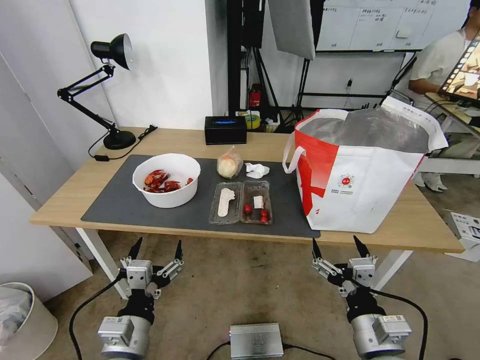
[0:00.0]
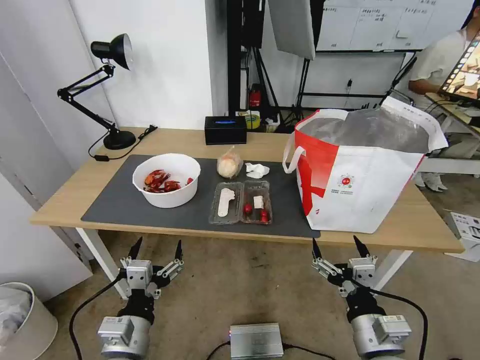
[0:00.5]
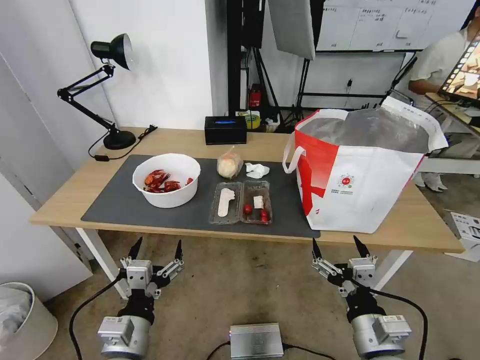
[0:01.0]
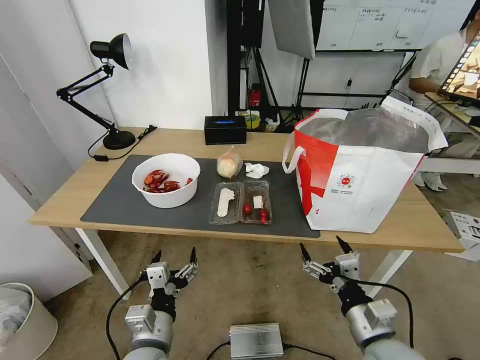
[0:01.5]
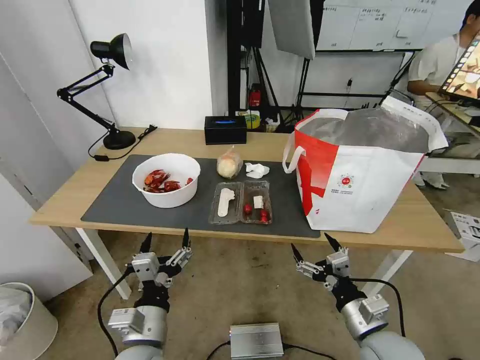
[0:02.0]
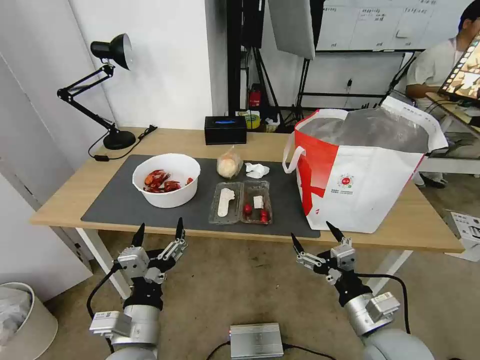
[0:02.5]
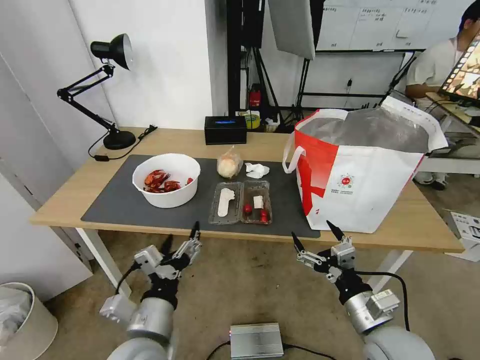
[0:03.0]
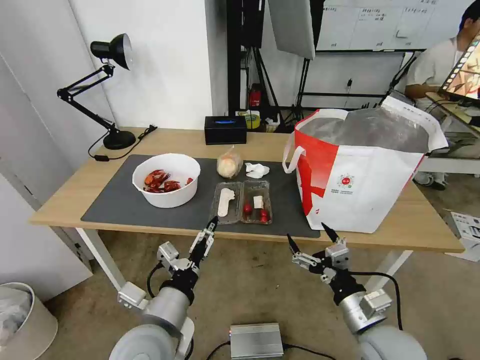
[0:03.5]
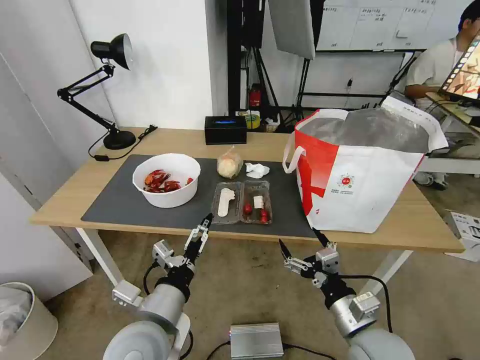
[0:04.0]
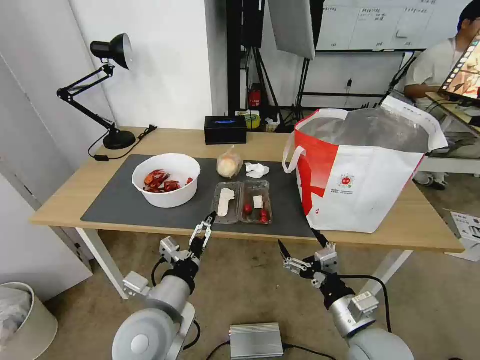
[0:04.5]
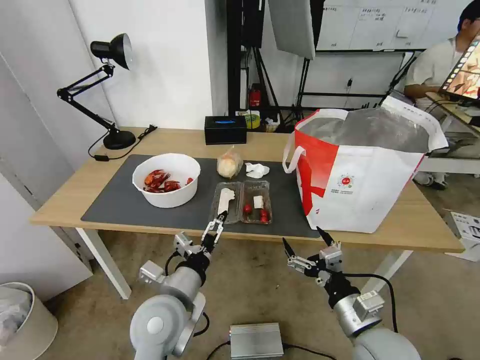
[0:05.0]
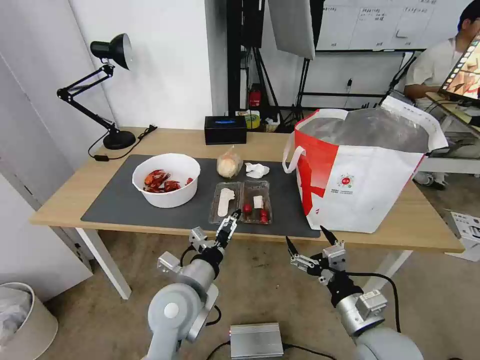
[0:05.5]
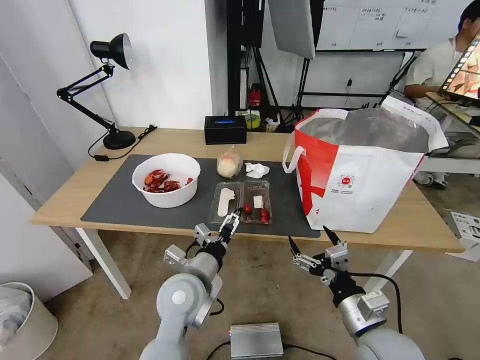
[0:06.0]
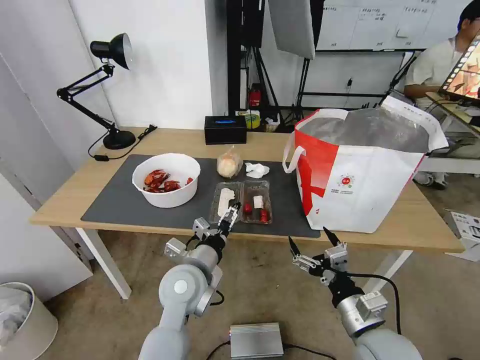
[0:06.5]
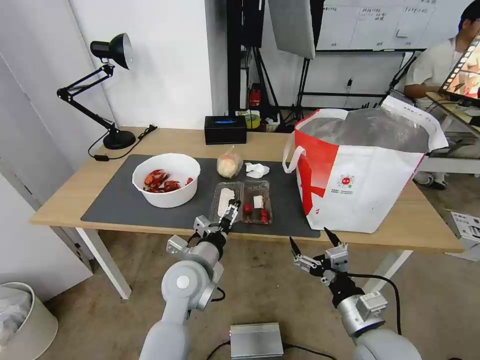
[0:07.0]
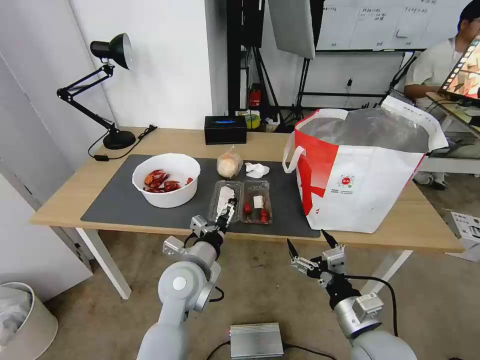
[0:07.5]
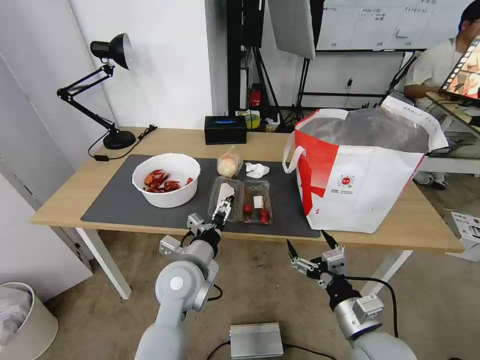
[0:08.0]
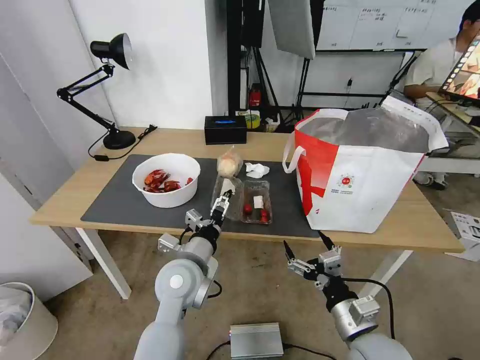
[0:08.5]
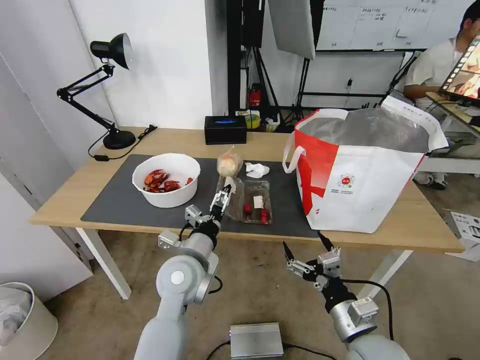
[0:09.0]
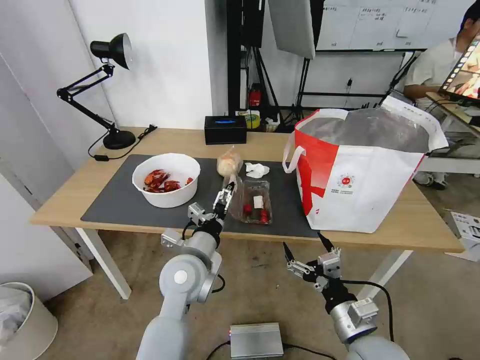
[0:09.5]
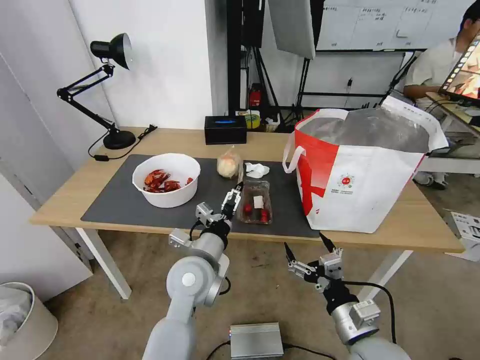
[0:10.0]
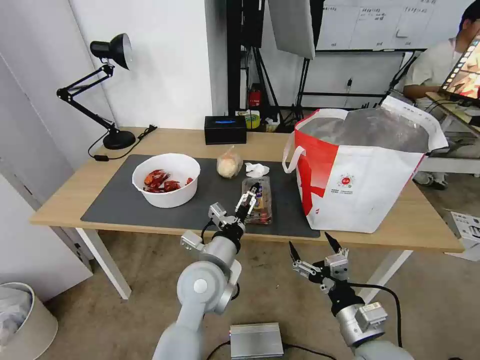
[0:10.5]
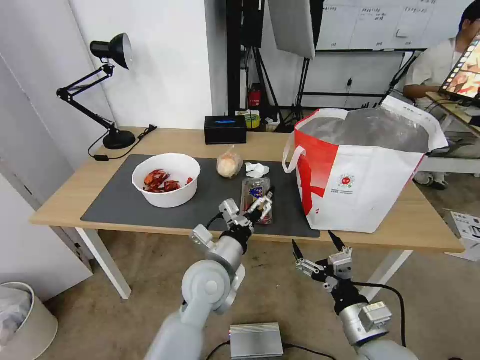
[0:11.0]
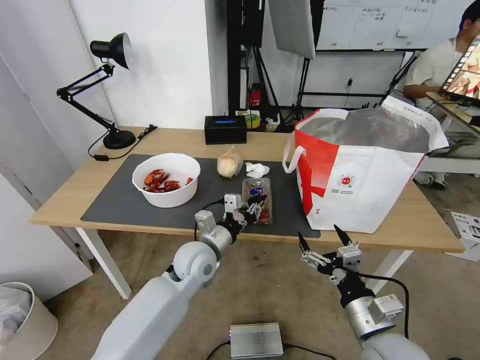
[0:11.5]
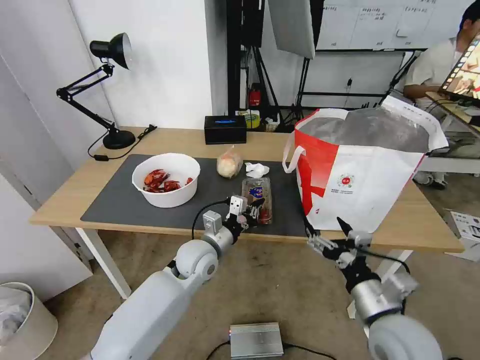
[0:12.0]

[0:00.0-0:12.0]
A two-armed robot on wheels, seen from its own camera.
Task of the whole recording: Pick up the trash from the table and place it into the takeout bag.
2.0 to 4.0 s: The left gripper moves upward, some 5 cm.
4.0 to 6.0 s: The left gripper moves forward, roughly 10 cm.
6.0 to 10.0 s: There are only small adjustments of the grippers.
10.0 to 12.0 s: The left gripper moves forward and downward, some 10 cm, and closes its fingers. The right gripper changes place by roughly 5 cm.

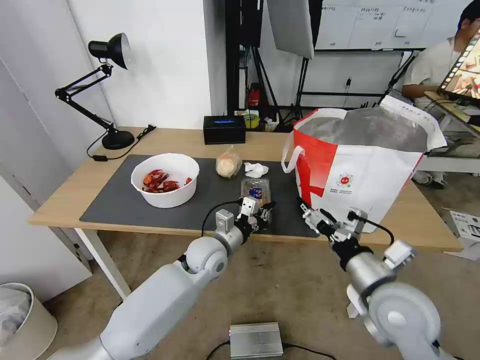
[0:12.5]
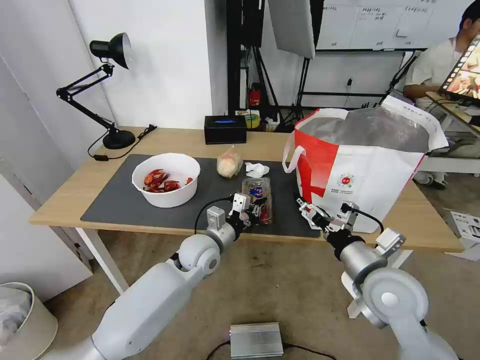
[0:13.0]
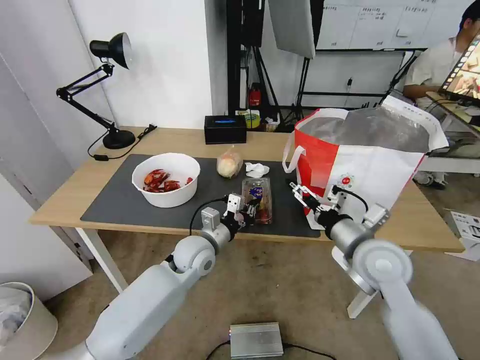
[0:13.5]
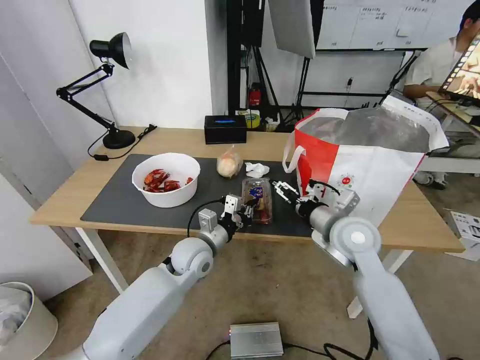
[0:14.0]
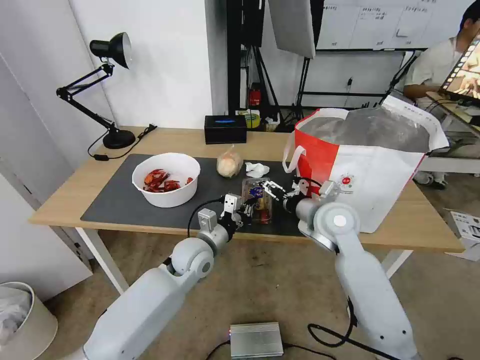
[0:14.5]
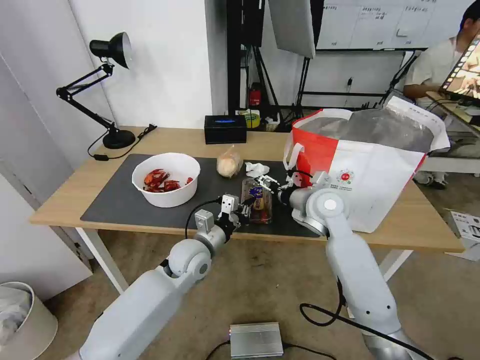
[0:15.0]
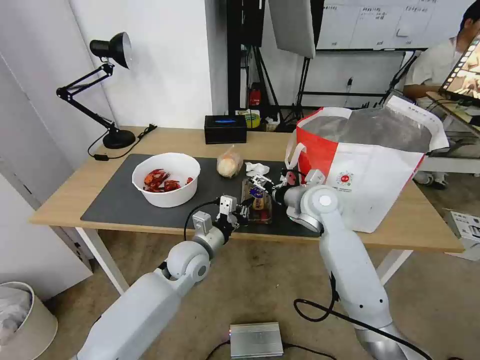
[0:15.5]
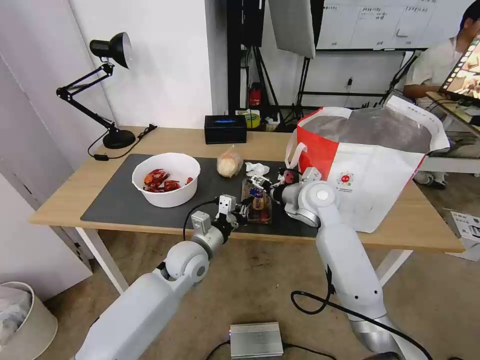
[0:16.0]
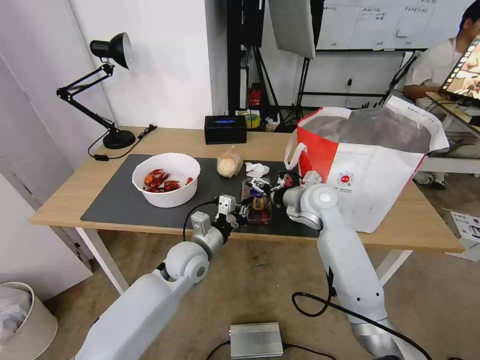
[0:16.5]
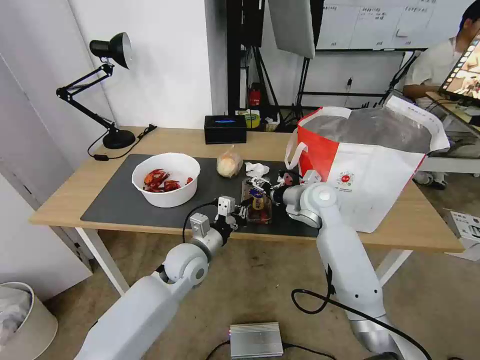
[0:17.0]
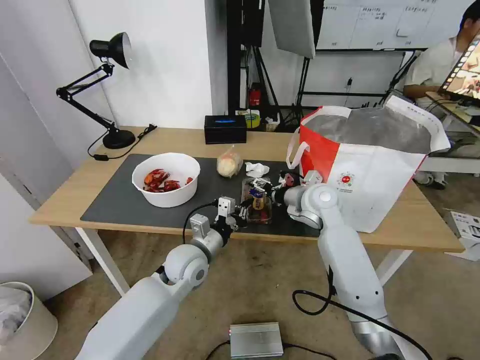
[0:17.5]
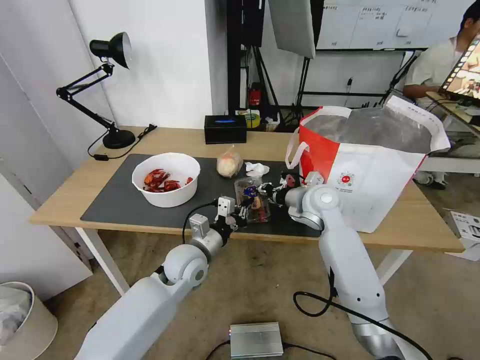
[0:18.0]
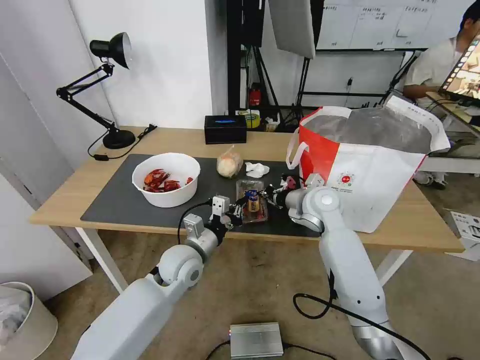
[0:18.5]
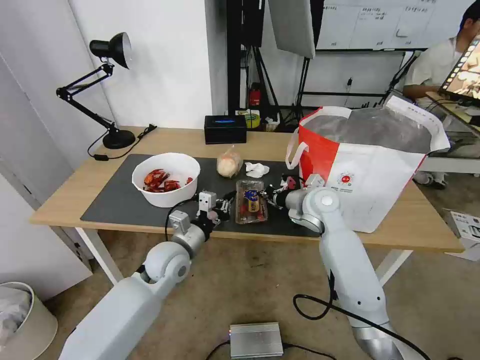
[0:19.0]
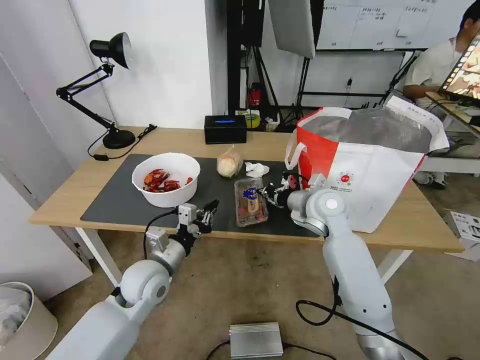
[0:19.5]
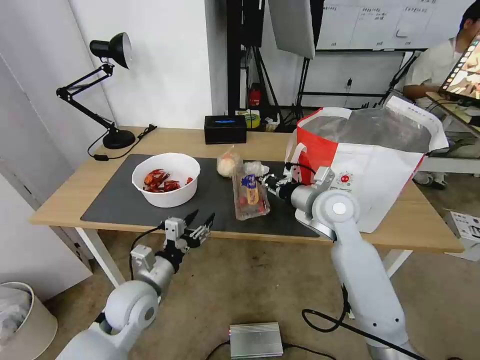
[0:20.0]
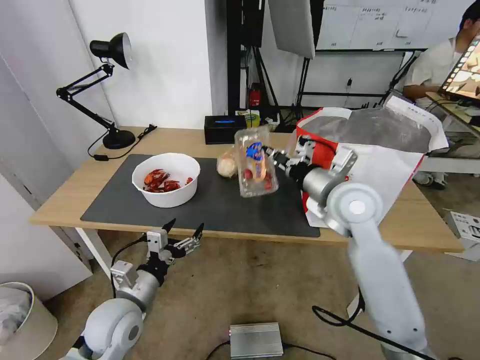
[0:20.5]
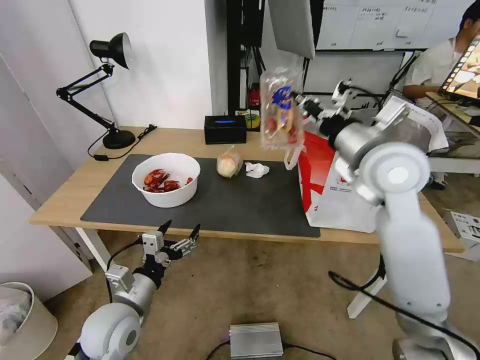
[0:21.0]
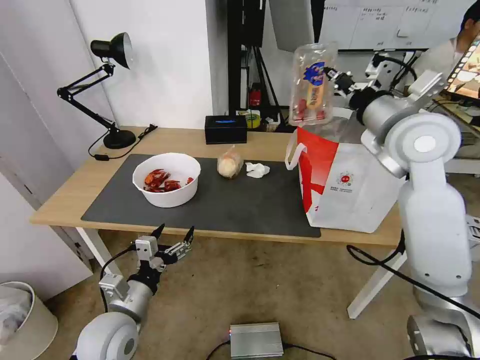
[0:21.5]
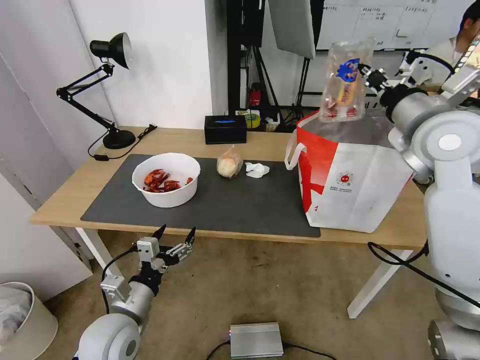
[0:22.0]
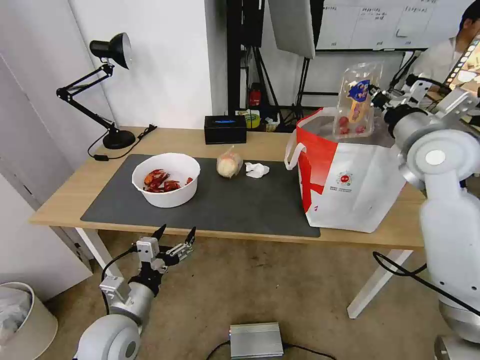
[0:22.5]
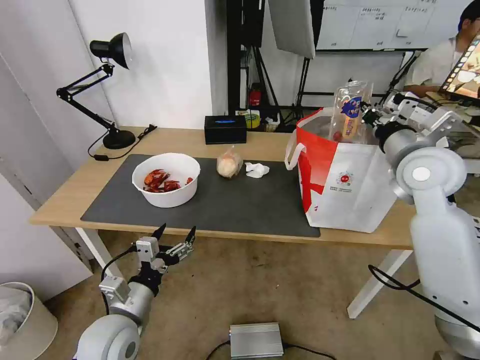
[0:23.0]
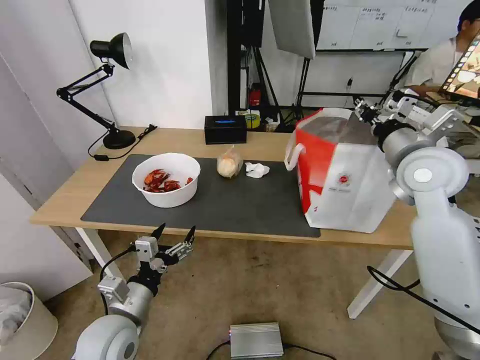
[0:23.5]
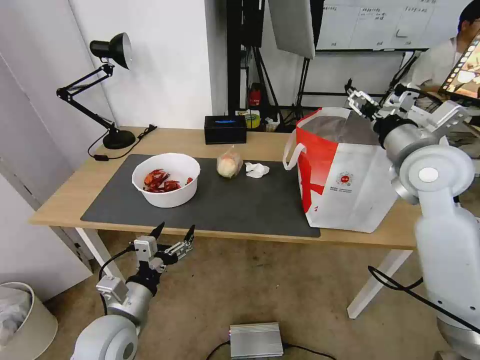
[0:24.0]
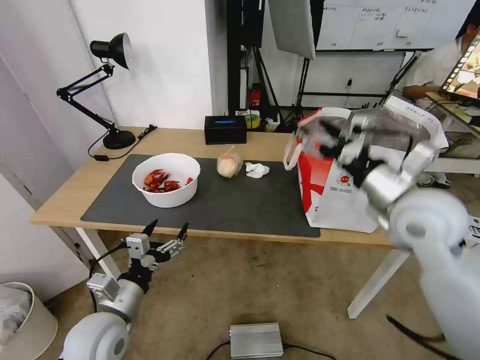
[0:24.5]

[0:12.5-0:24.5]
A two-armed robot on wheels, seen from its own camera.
Task of the whole recording: Pick up the trash from the table and place it into the takeout bag.
12.5 to 14.5 s: The right gripper is displaced forward by roughly 20 cm.
14.5 to 16.5 s: The right gripper shifts approximately 5 cm forward.
16.5 to 18.5 s: The right gripper closes.
18.5 to 20.5 s: The left gripper goes approximately 15 cm backward and to the left, and opens its fingers. The right gripper shifts roughly 10 cm upward and backward.
20.5 to 22.5 s: The right gripper heads to the right and upward, covering about 15 cm.
22.5 to 24.5 s: The right gripper is displaced backward, downward and to the left by roughly 10 cm, and opens up.

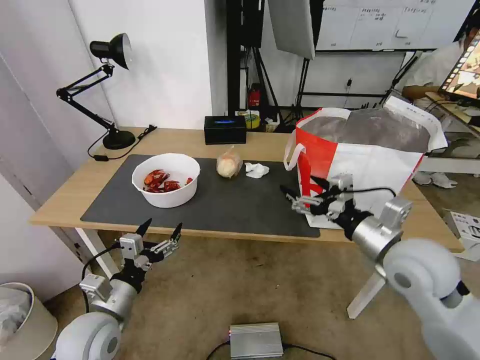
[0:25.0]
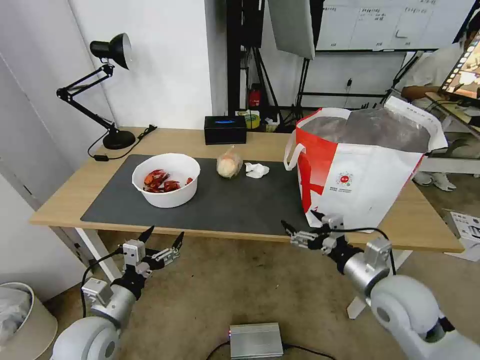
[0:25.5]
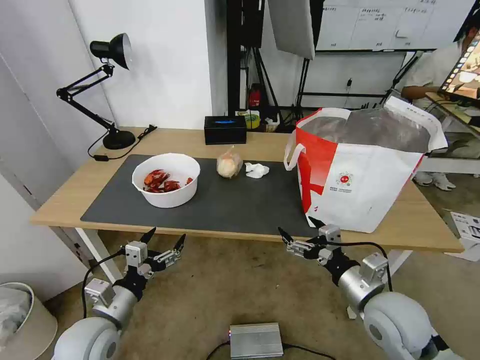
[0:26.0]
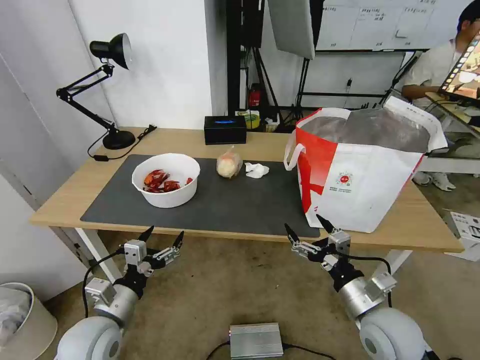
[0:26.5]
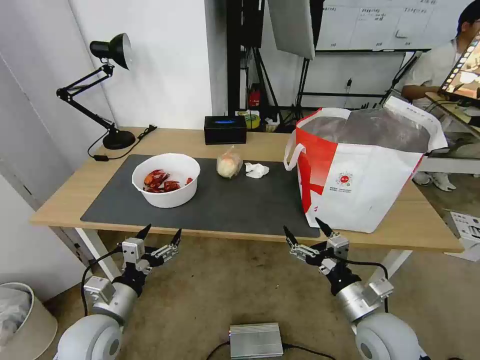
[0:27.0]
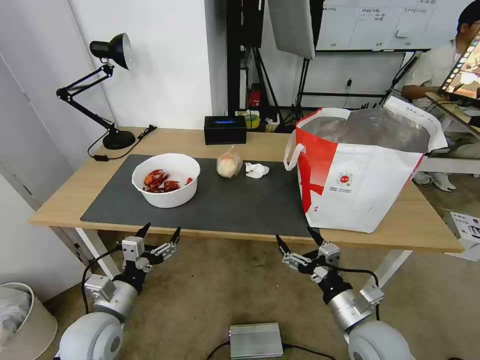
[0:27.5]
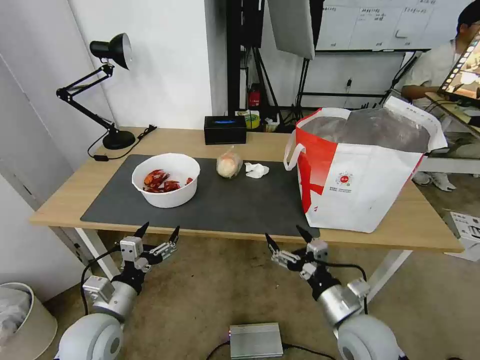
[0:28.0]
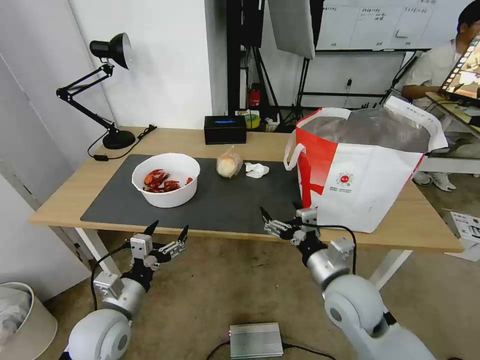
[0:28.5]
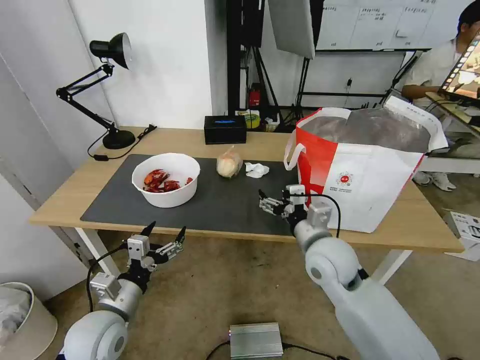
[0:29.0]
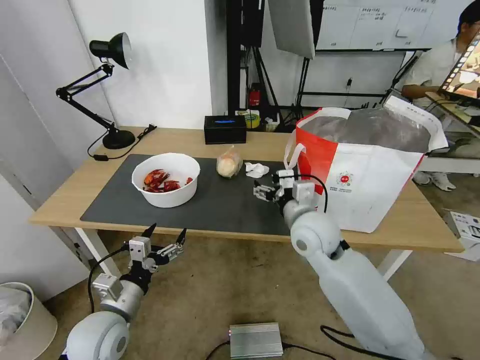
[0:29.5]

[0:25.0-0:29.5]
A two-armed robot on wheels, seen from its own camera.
Task of the whole recording: Pick up the trash from the table and place it into the takeout bag.
25.0 to 27.0 s: The right gripper is displaced downward and backward by about 15 cm.
27.0 to 29.5 s: The right gripper shifts some 20 cm forward, to the left and upward.
